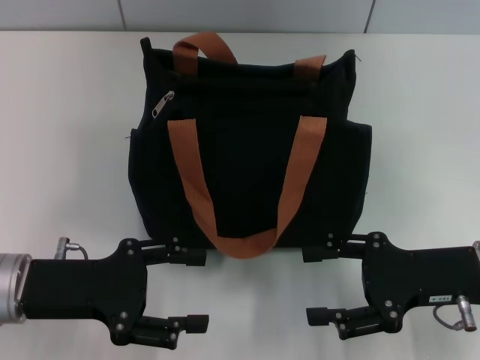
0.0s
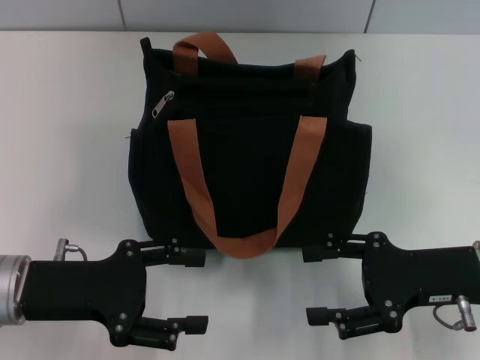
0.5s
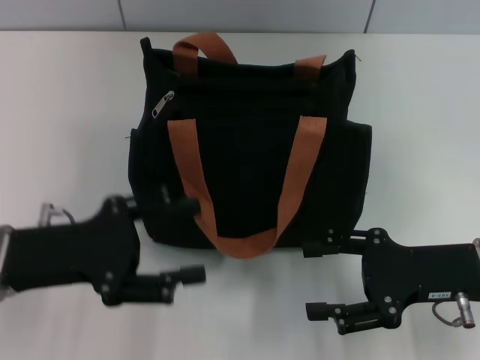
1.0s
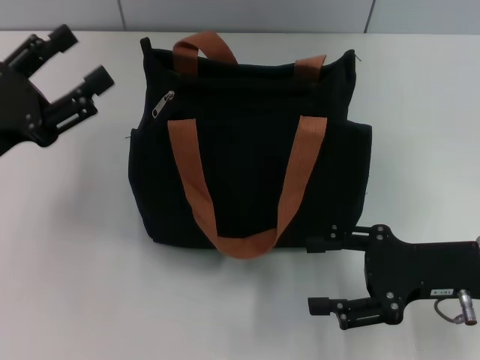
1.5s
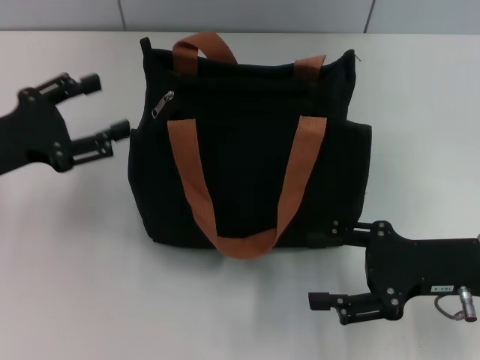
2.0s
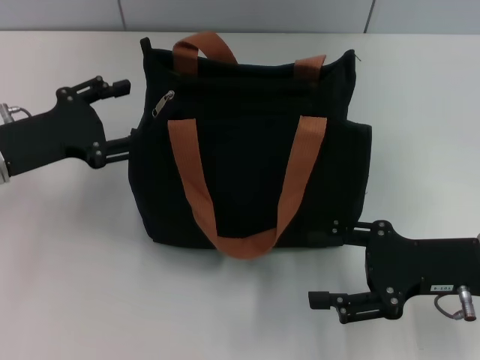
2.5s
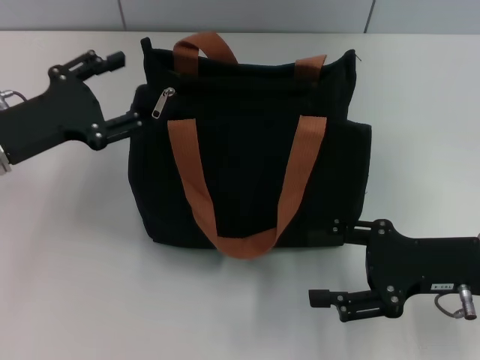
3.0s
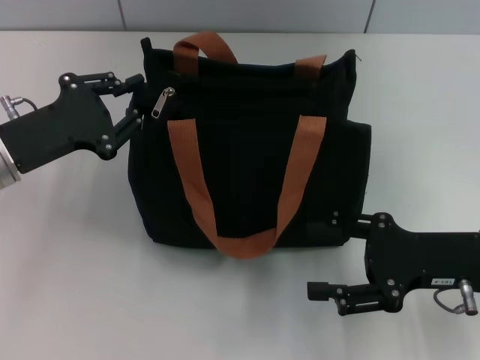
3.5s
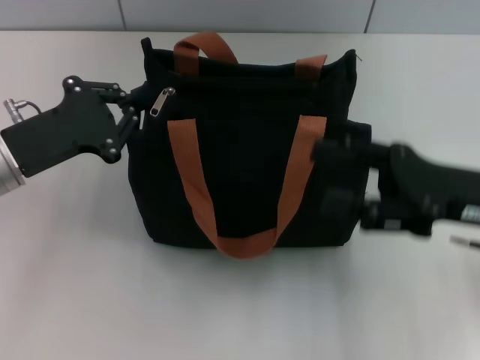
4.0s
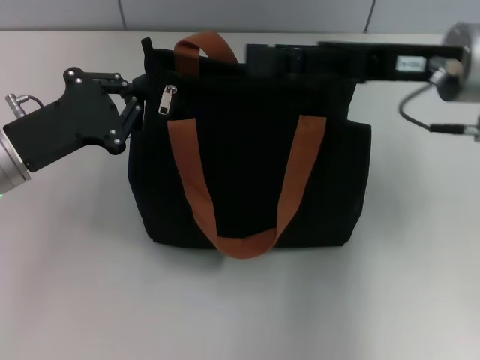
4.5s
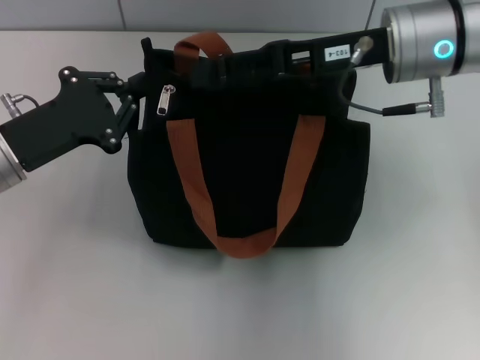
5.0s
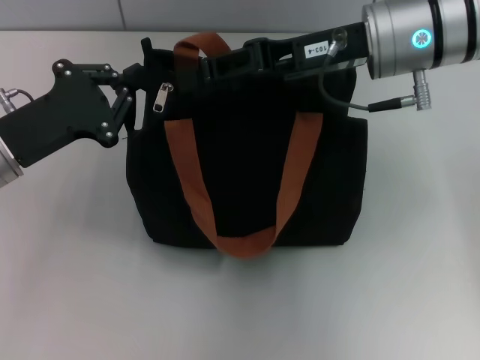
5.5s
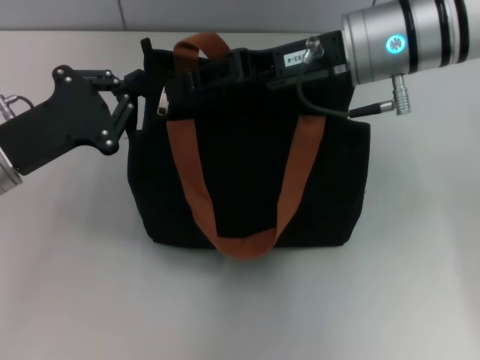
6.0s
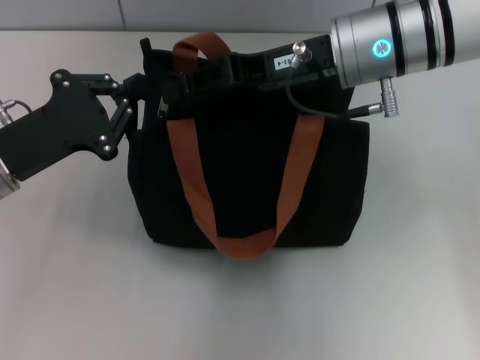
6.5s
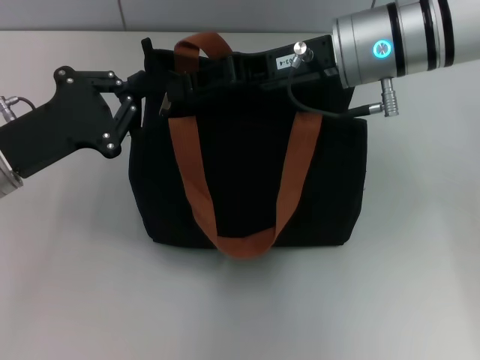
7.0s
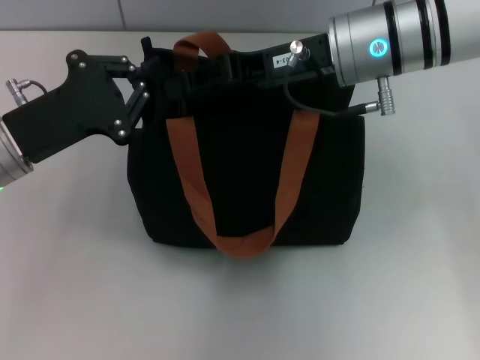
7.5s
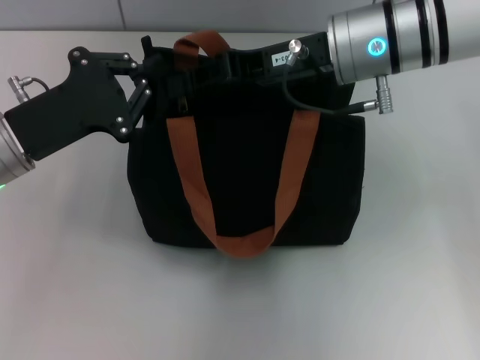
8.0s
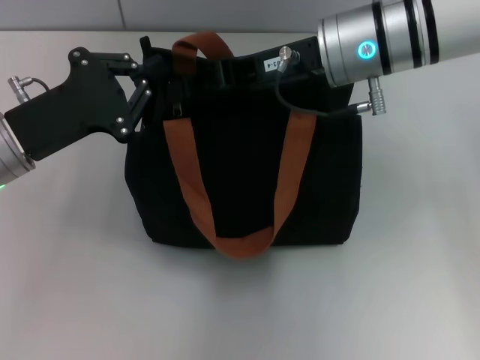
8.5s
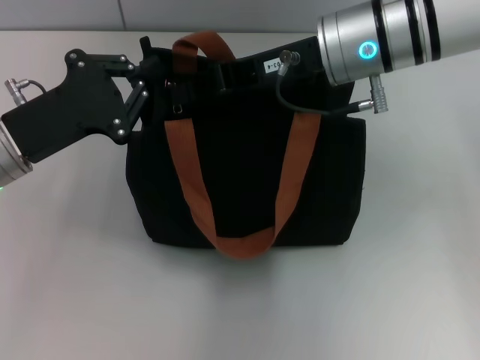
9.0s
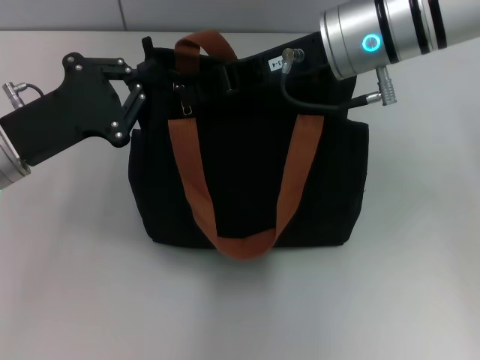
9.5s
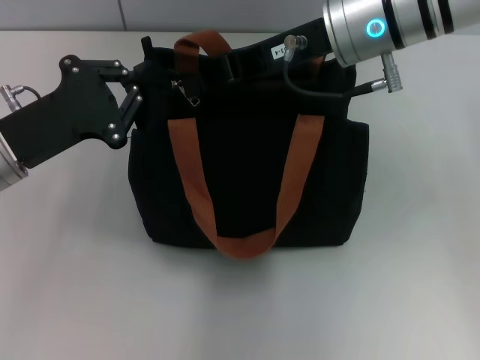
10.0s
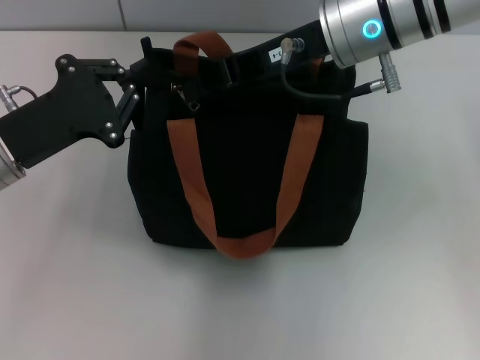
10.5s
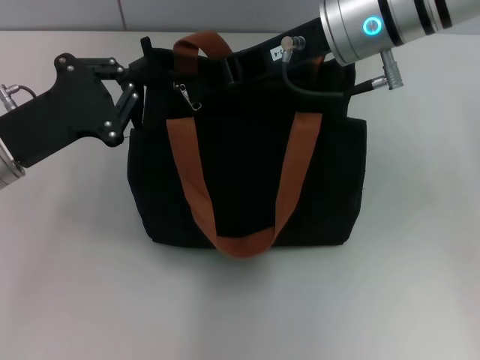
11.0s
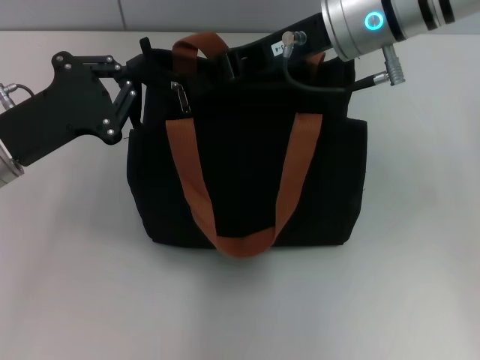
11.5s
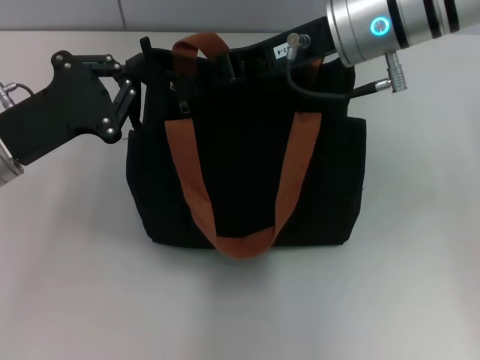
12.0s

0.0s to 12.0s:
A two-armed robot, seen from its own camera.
0.0s to 2.0s: The left gripper moves forward and to the left, roughly 10 cm.
2.0s to 4.0s: The left gripper closes its fingers; the right gripper travels upward by some 5 cm.
4.0s to 6.0s: The right gripper goes about 20 cm to the left, forward and upward, and closes its fingers.
6.0s to 8.0s: There are only small adjustments of the grippers.
8.0s to 10.0s: The right gripper closes.
10.0s to 12.0s: Neither gripper changes place.

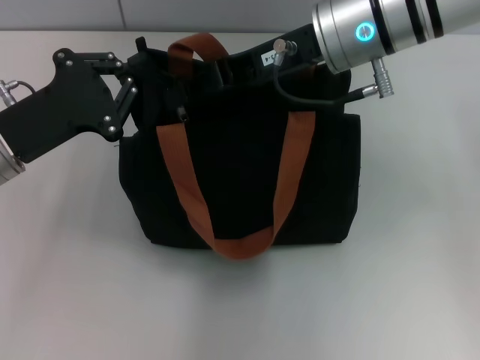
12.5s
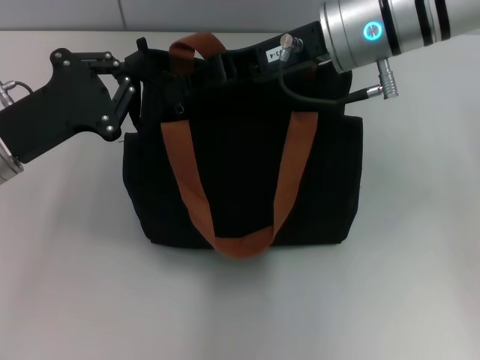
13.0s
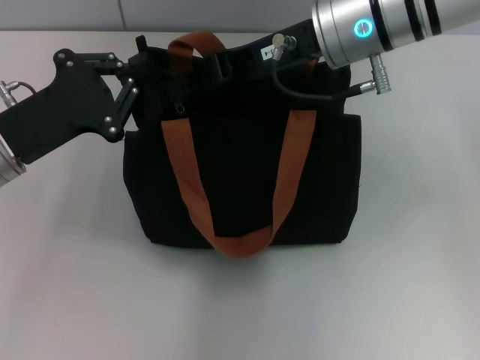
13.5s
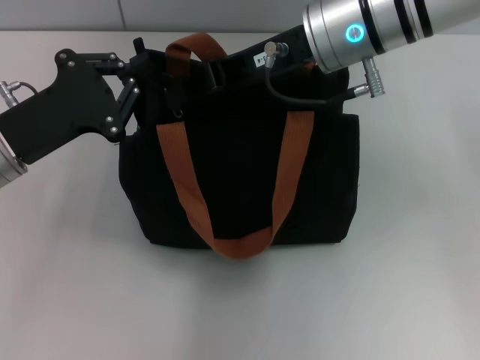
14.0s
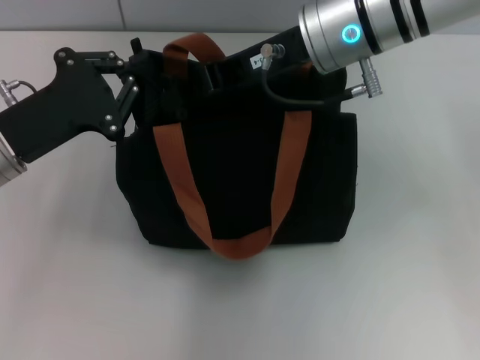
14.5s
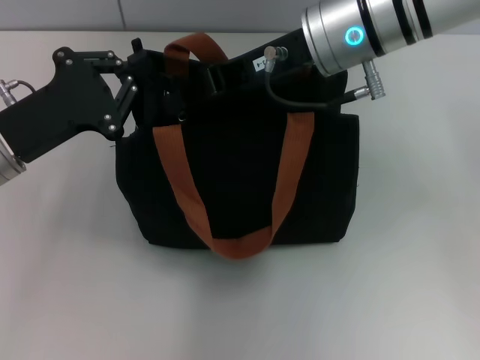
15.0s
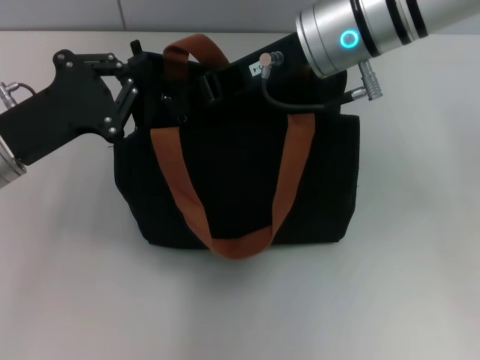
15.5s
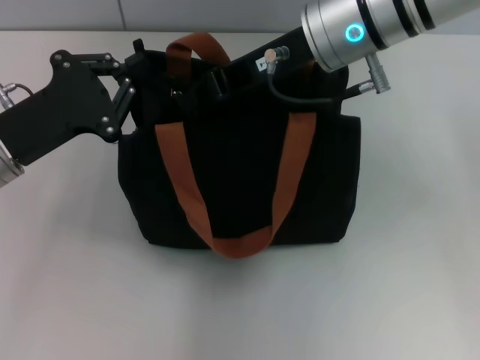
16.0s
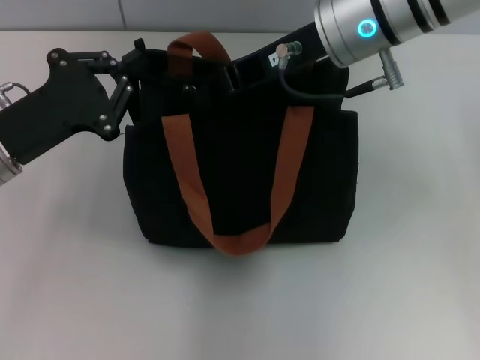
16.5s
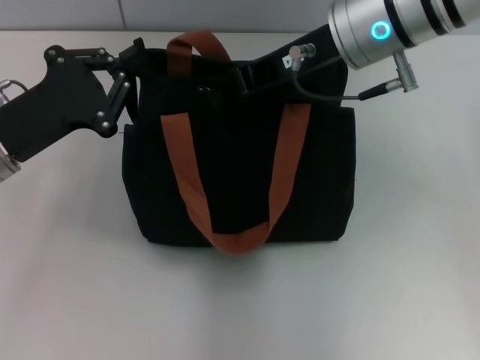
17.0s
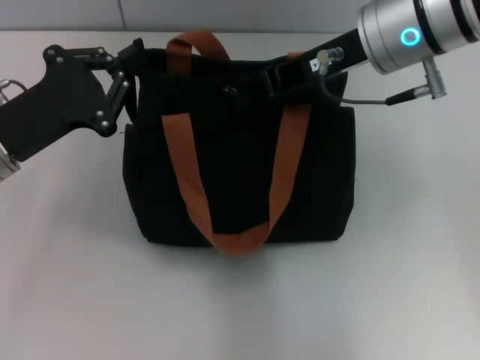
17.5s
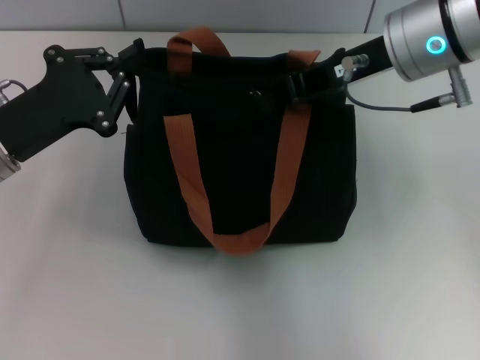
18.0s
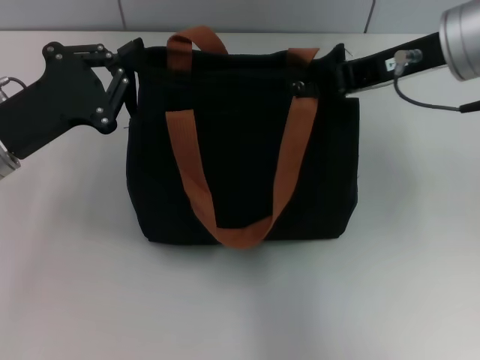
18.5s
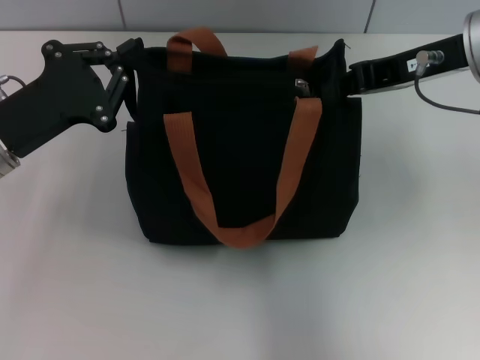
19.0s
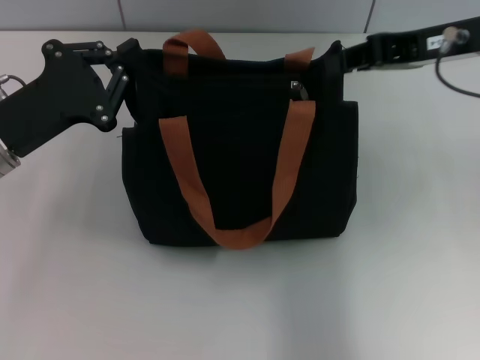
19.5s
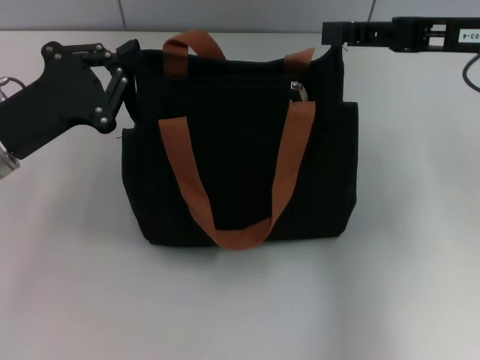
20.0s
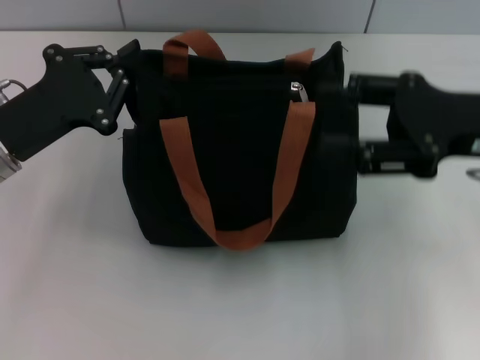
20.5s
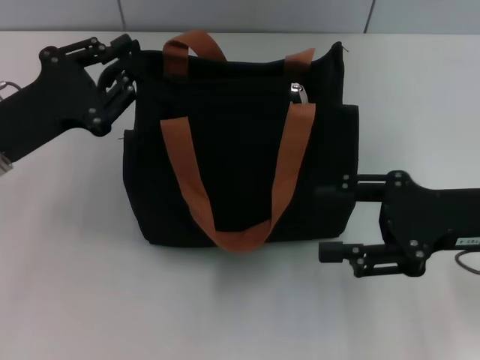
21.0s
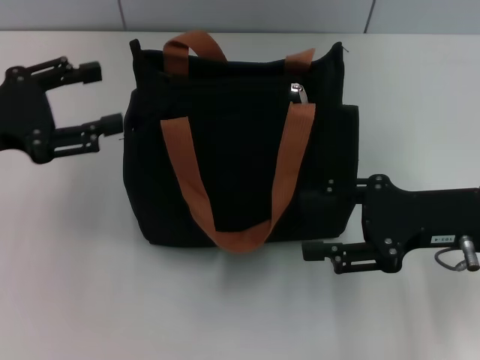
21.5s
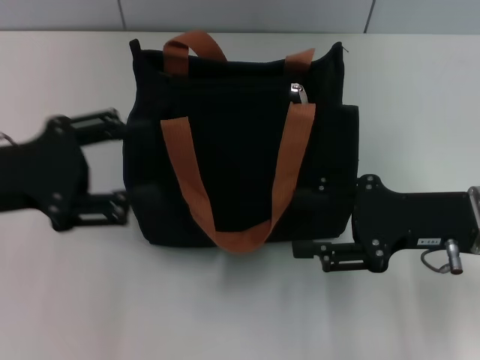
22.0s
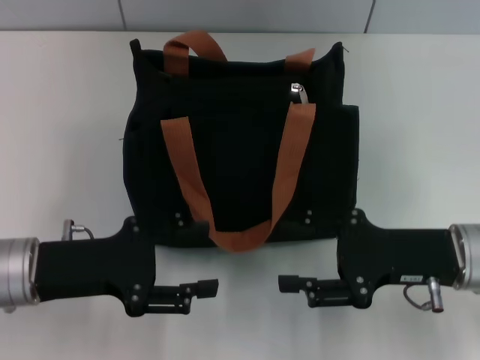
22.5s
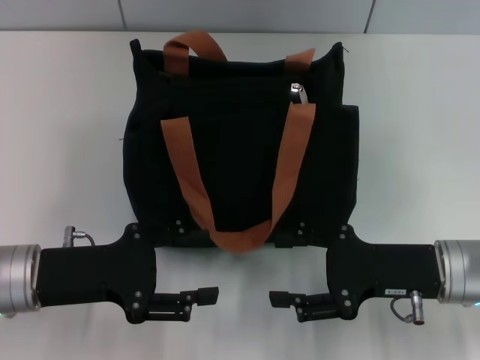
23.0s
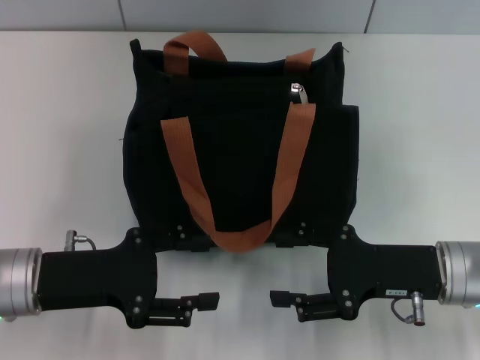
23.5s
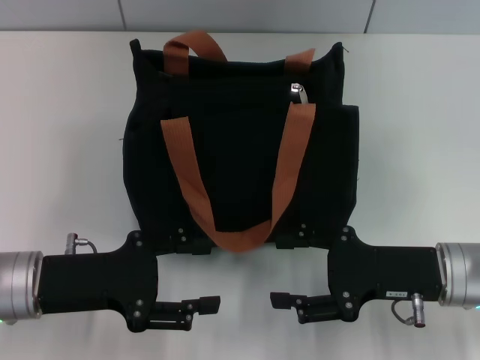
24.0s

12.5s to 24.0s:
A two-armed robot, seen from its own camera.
Step, 12.5s to 19.5s: Pull up the zipper with your right hand.
Step, 20.0s to 21.5s: Grab the zipper with your left hand.
12.5s to 14.5s: Both grippers stay about where they are.
14.5s to 16.5s: The grippers make only small movements.
16.5s to 18.5s: The right gripper heads to the right, covering approximately 10 cm.
18.5s to 20.0s: The right gripper shifts roughly 5 cm to the right, and opens its fingers.
20.0s to 22.0s: The right gripper travels downward and backward by some 15 cm, and opens. Meanwhile the left gripper changes place by some 5 cm, and opens up.
22.0s to 24.0s: The left gripper travels downward by roughly 10 cm. Meanwhile the right gripper ends up about 5 cm from where it was.
